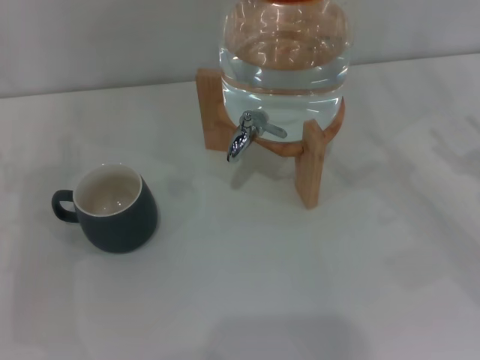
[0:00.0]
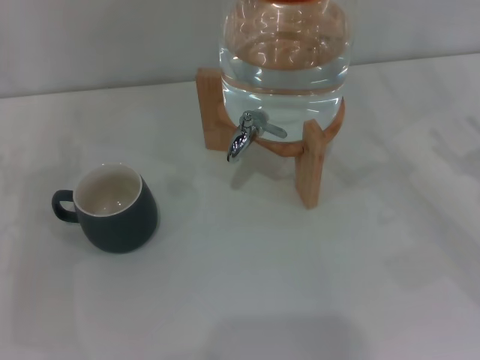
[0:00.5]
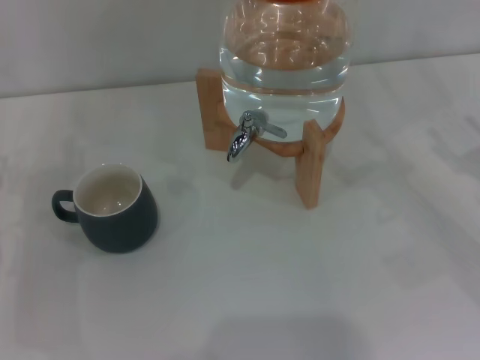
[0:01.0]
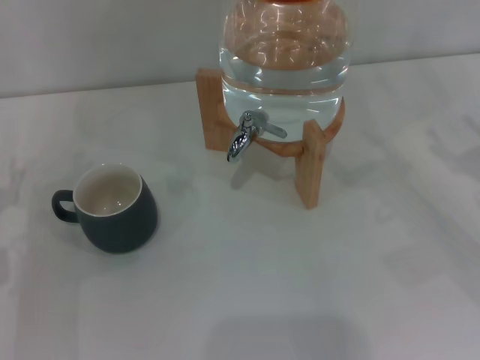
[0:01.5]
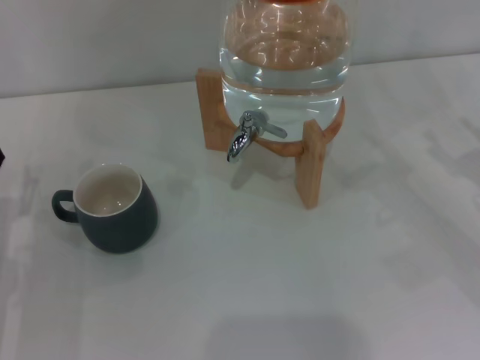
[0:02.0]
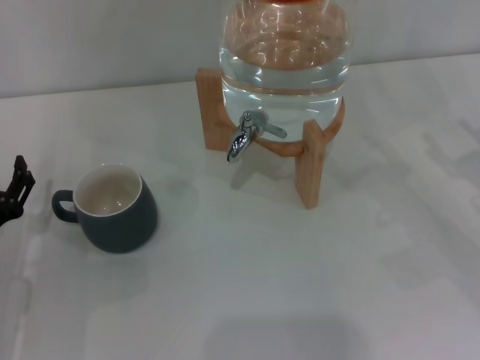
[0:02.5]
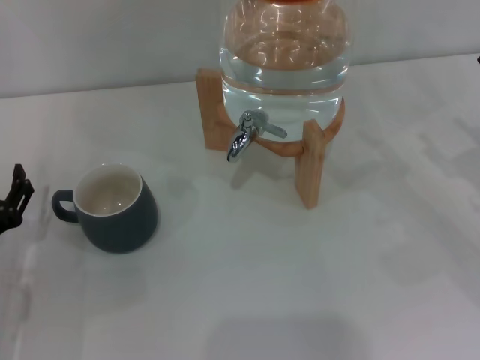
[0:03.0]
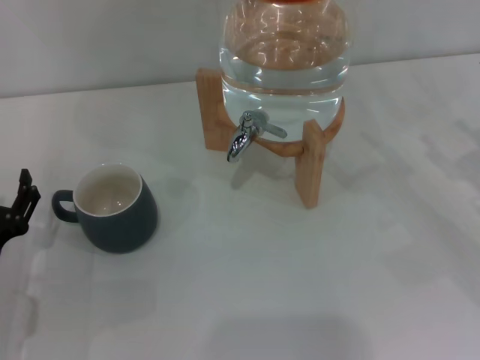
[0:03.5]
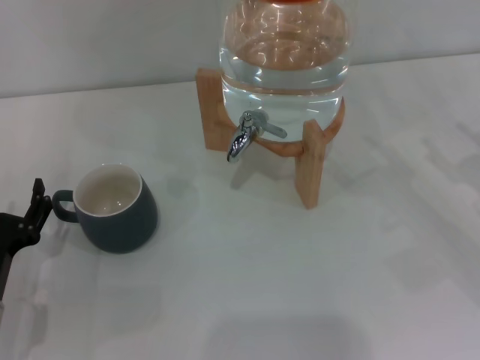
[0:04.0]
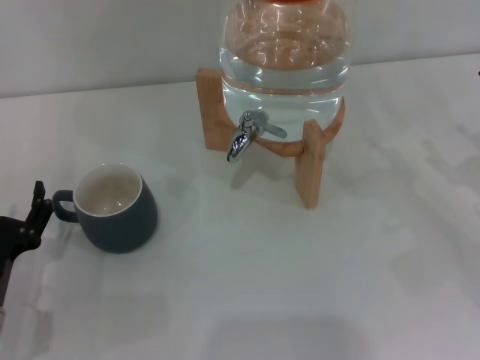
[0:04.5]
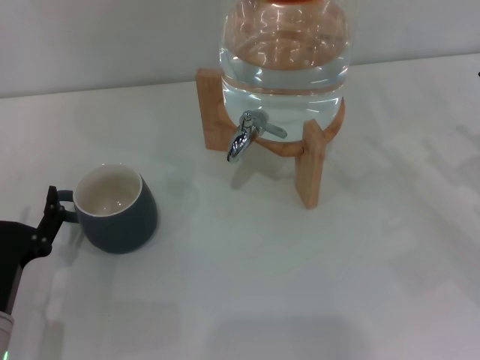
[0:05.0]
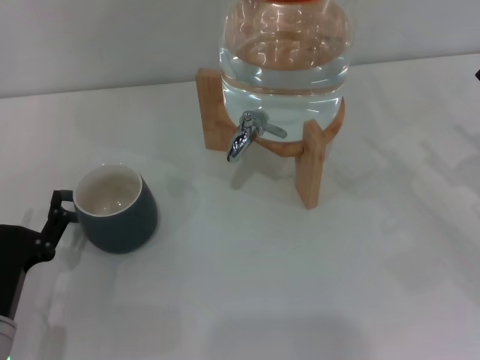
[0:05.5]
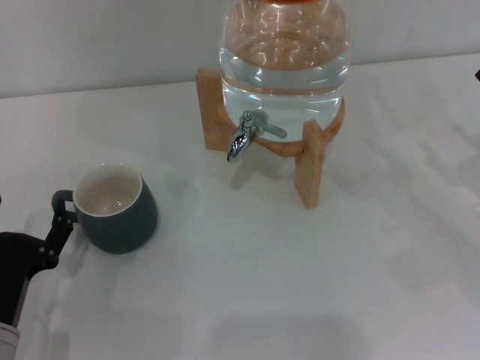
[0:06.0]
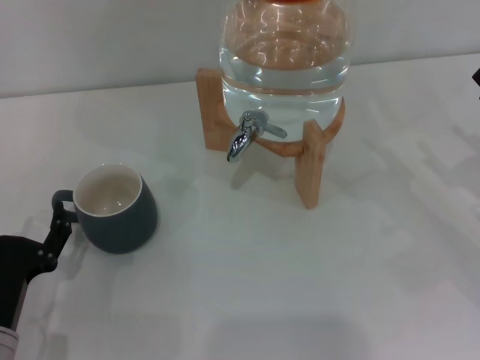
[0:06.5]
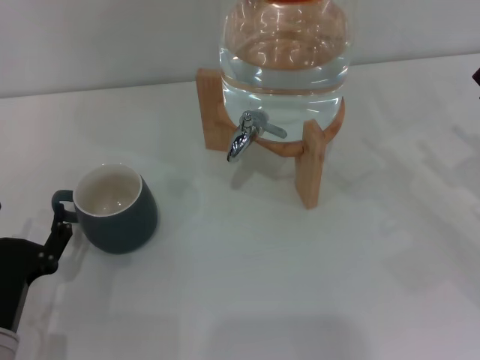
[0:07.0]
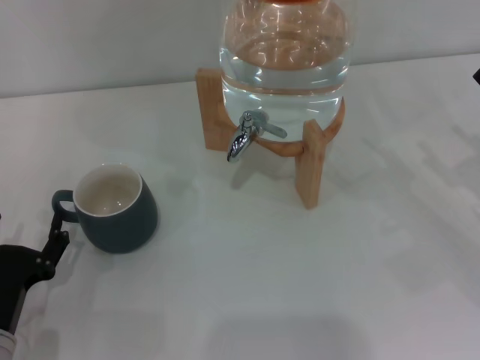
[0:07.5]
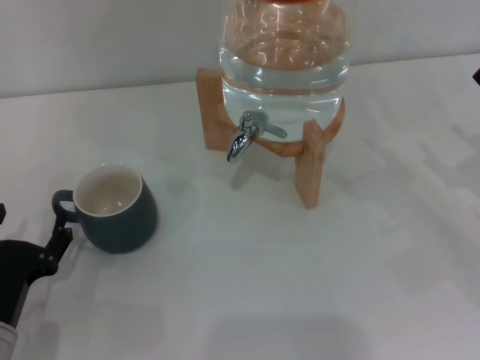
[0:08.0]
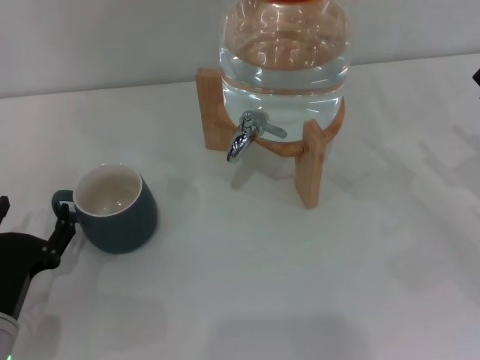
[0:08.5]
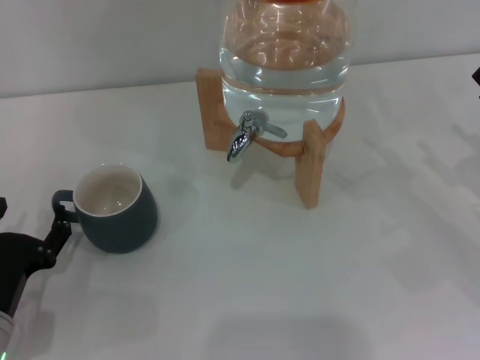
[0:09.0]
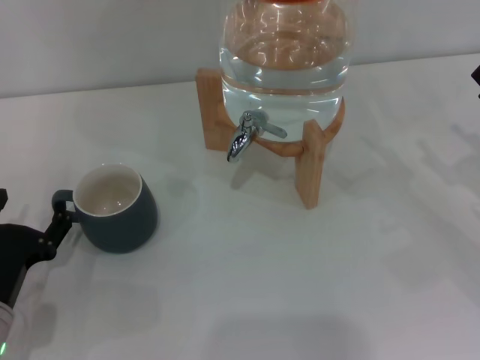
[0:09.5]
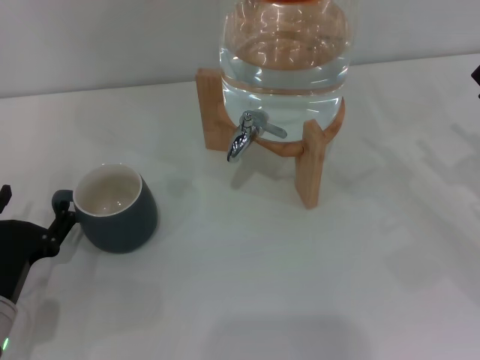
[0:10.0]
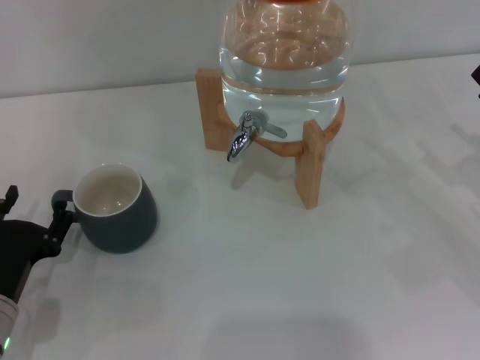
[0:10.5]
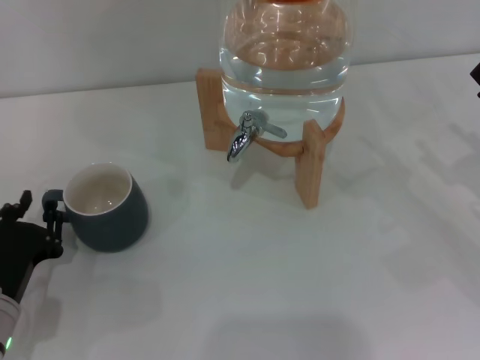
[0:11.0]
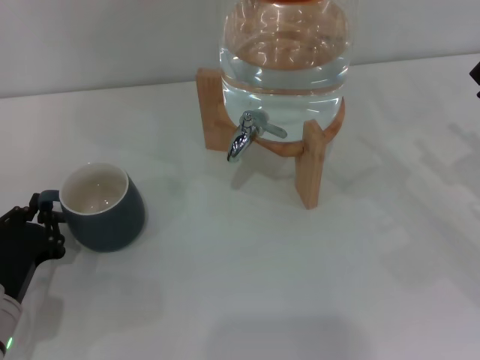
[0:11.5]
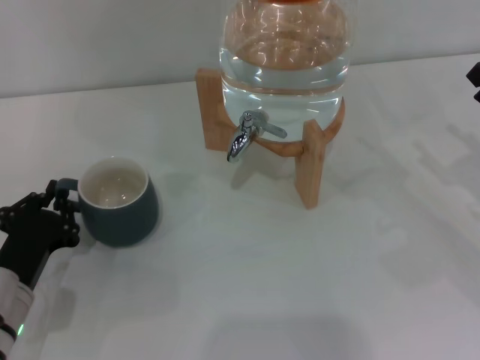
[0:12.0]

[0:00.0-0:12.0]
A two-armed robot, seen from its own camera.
Task of the whole recording: the left gripper pick up the black cup and place it horizontally under the faucet, the right gripper turn on the faucet to fill the cup, and then turn off the faucet.
0:02.0 to 0:04.0: The left gripper is displaced backward by about 5 cm.
0:04.0 to 0:10.0: The grippers stay close to where they were, moving slightly.
0:10.0 to 0:12.0: The left gripper closes its fingers.

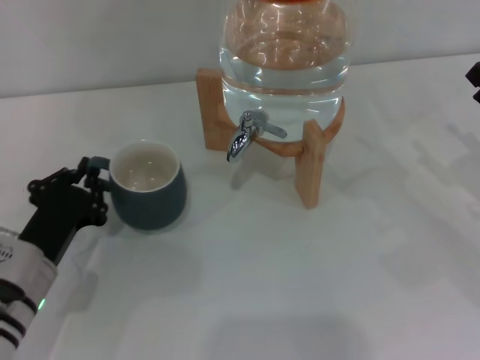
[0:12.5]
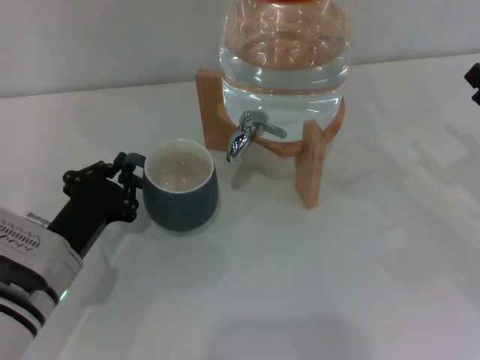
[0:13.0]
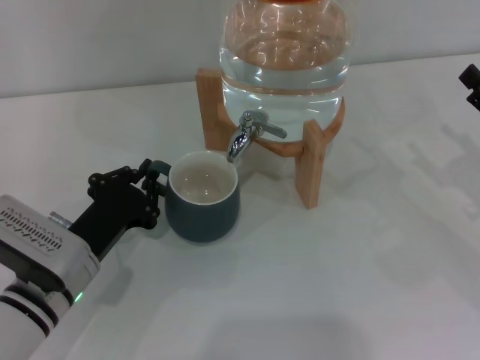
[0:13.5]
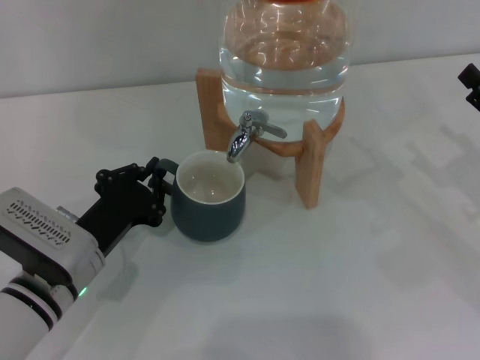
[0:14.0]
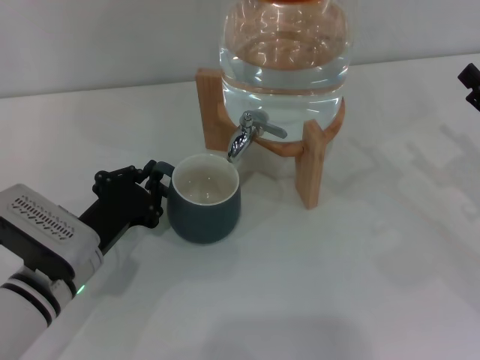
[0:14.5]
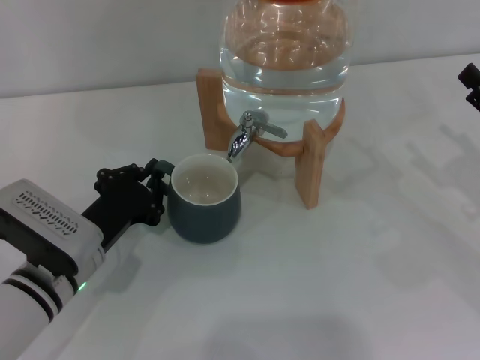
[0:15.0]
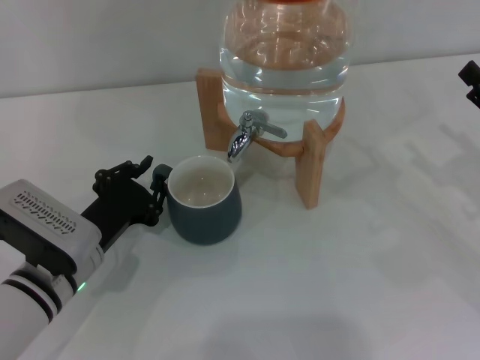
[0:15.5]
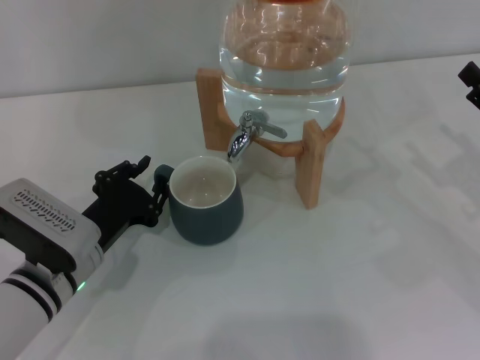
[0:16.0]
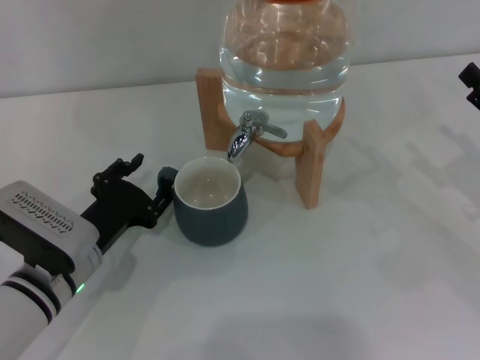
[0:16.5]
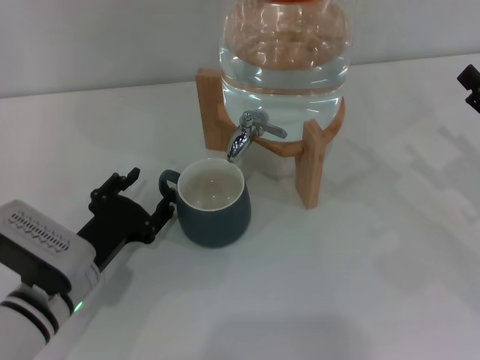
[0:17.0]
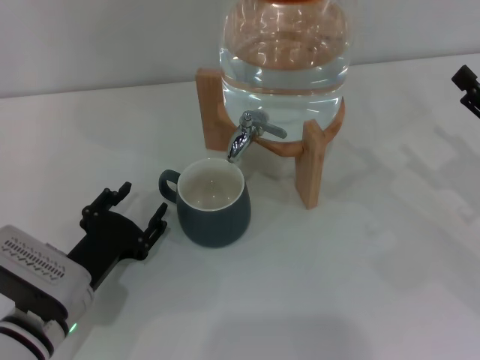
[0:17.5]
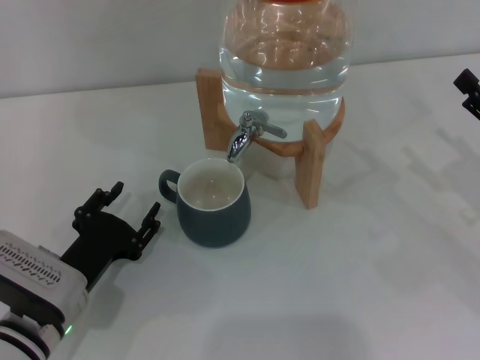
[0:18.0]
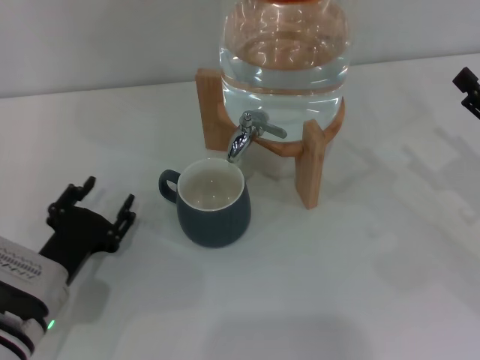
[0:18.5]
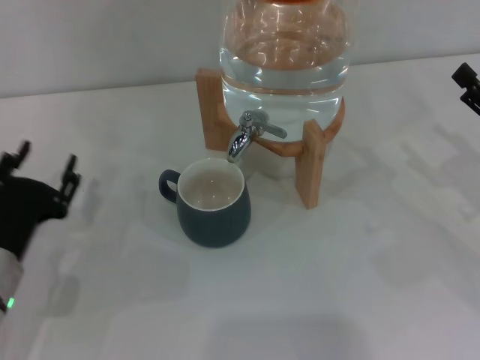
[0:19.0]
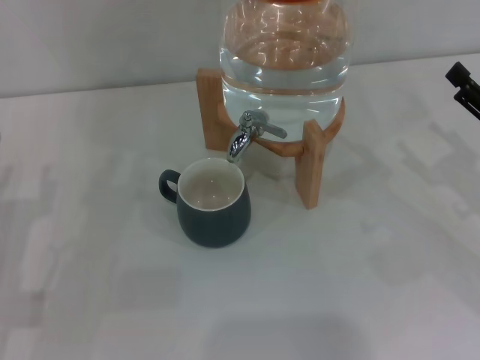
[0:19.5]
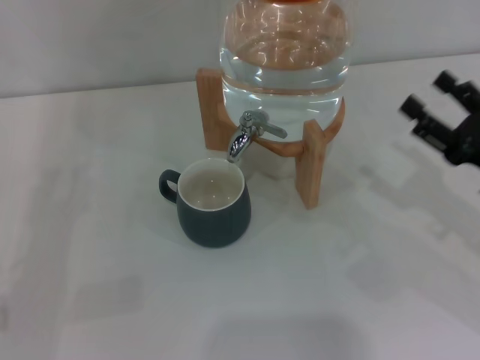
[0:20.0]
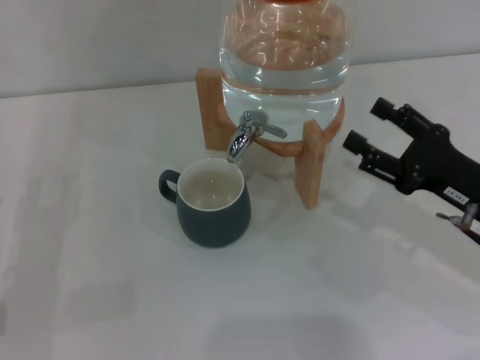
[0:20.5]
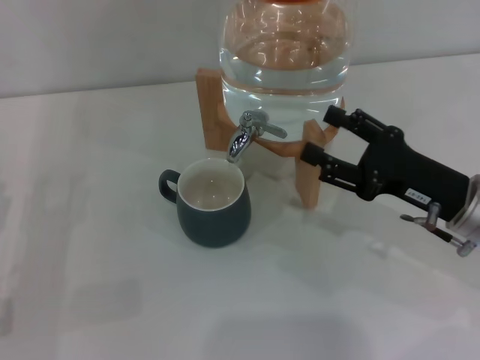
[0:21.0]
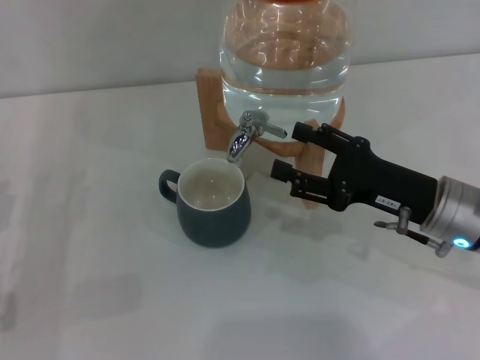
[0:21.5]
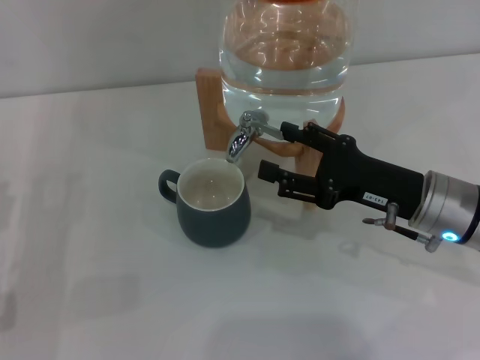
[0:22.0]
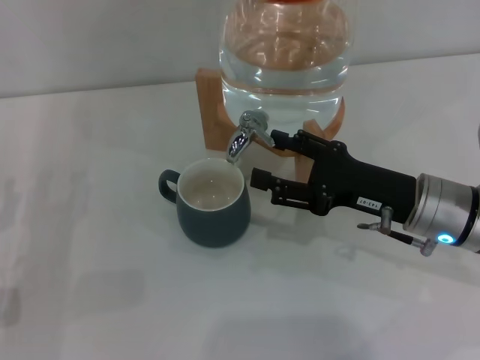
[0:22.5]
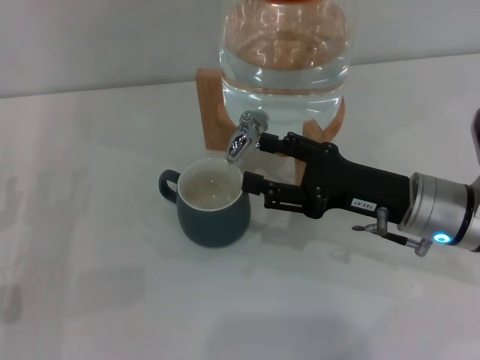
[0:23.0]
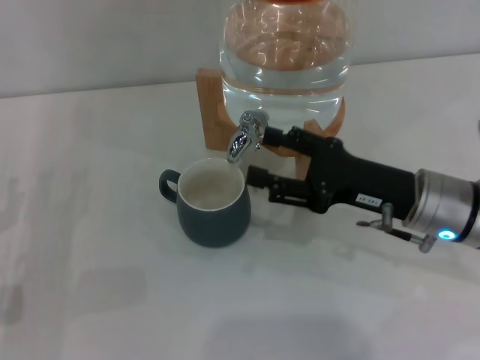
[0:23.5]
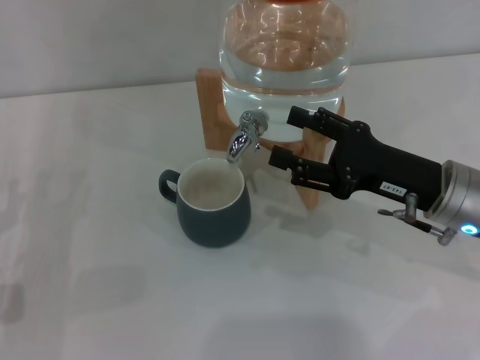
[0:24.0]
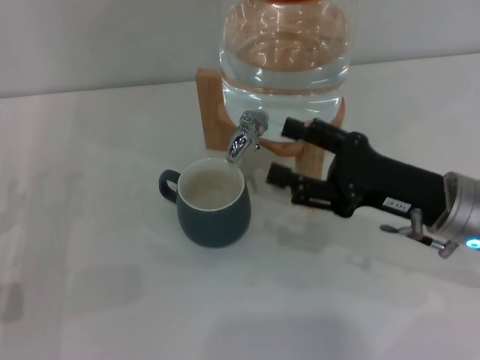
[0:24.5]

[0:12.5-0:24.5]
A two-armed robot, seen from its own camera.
Task of the whole recording: the left gripper pick up the black cup and place it horizontally under the faucet, the right gripper turn on the faucet to fill the cup, and then turn off the faucet.
Step, 0:12.5 to 0:18.0: Move the cup beneath the water dispenser nozzle with the left gripper.
0:12.5 to 0:14.5: The grippers stay close to where they were, moving slightly.
0:14.5 to 0:16.5: The left gripper opens.
0:16.5 to 0:18.5: The grippers stay close to where they were, moving slightly.
0:18.5 to 0:20.5: The left gripper is displaced to the left by roughly 10 cm; the right gripper goes approximately 5 cm to the left.
0:20.5 to 0:22.5: The right gripper shifts about 5 cm to the left.
0:22.5 to 0:24.5: There are only small adjustments of the grippers.

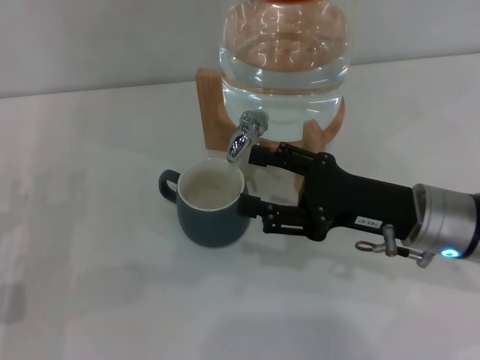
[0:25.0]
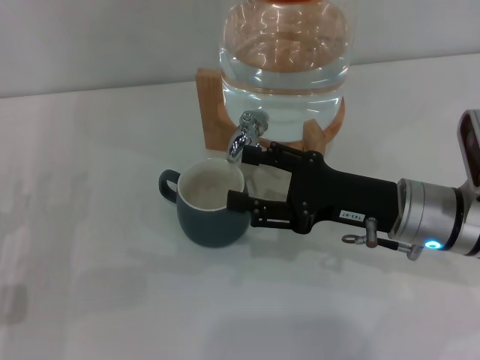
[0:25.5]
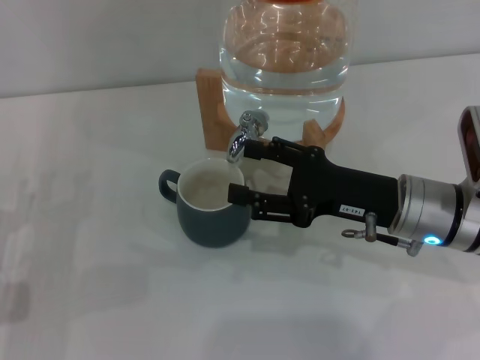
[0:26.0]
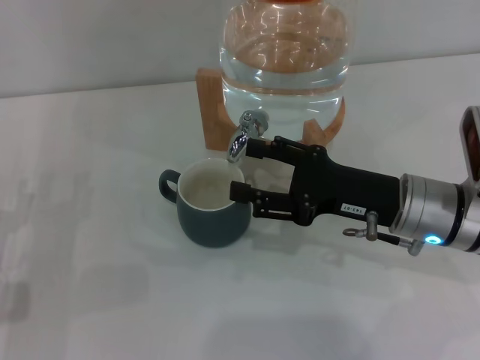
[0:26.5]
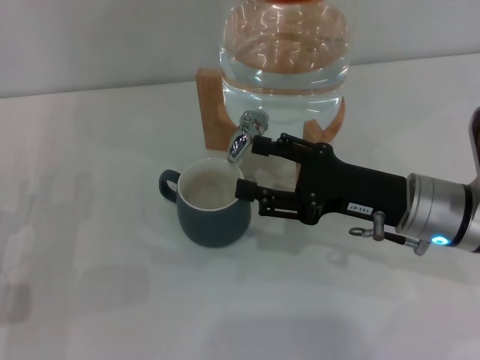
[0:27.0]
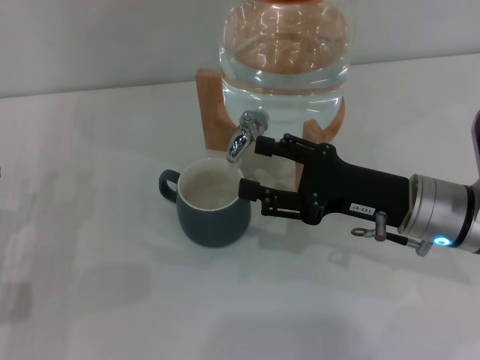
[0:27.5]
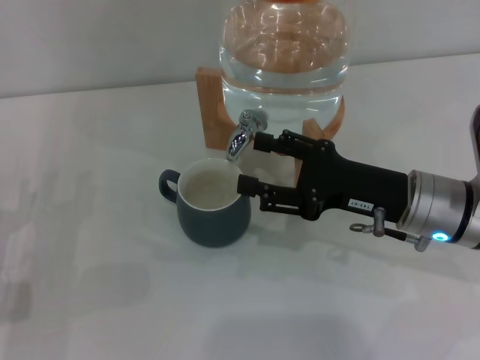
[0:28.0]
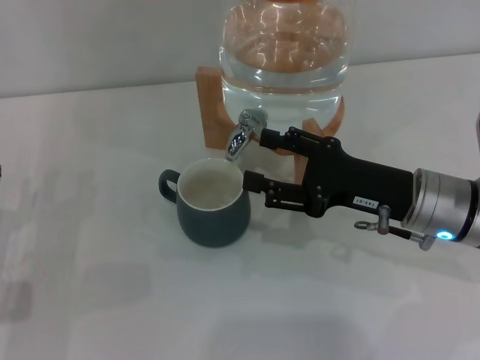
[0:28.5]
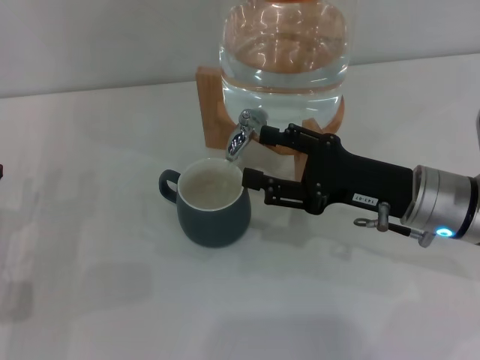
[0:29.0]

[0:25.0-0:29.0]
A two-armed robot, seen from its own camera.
Task of the whole recording: the left gripper pick up the black cup and place it horizontally under the faucet, the right gripper turn on the faucet to fill the cup, and then turn off the faucet.
0:25.0 to 0:27.0: There are only small adjustments of the grippers.
0:27.0 to 0:29.0: The two grippers keep their place.
